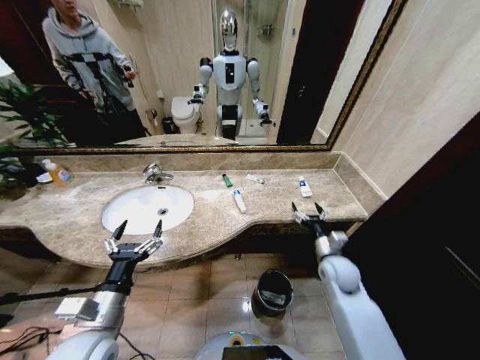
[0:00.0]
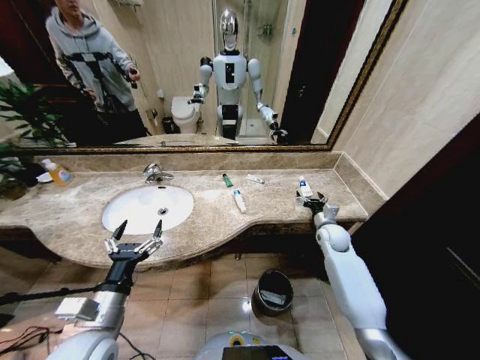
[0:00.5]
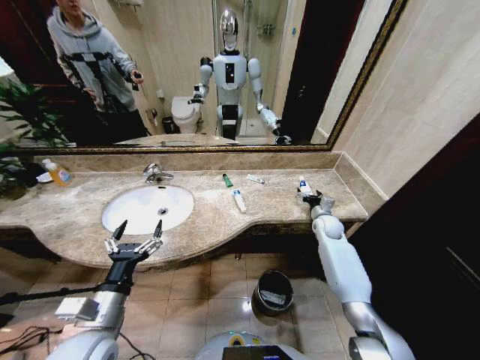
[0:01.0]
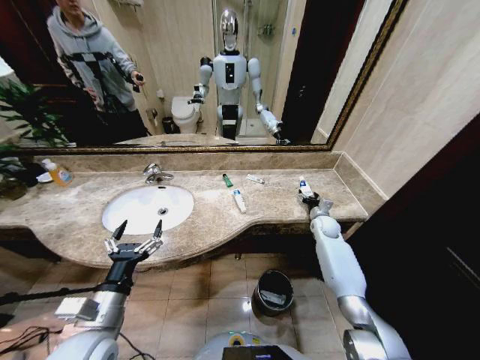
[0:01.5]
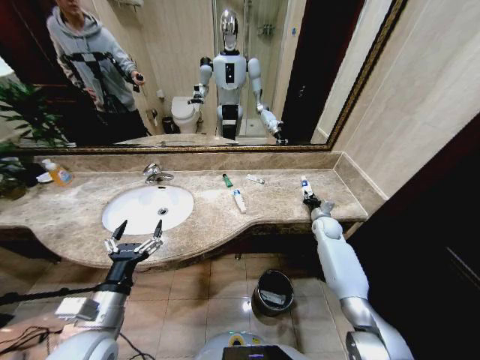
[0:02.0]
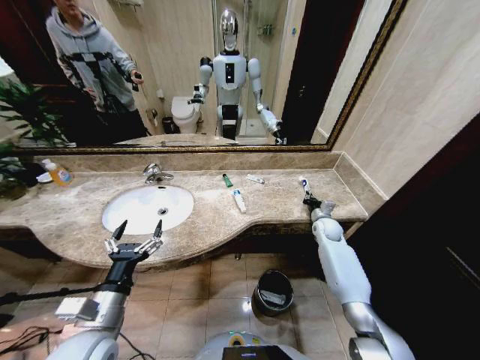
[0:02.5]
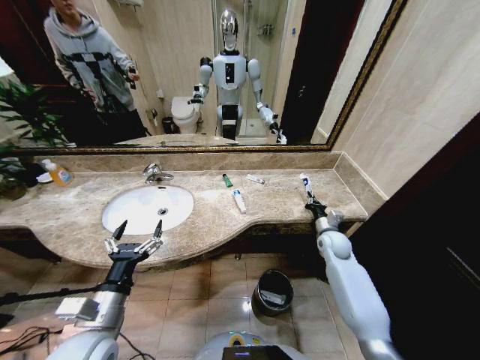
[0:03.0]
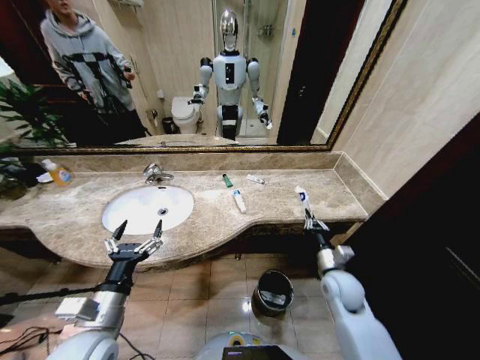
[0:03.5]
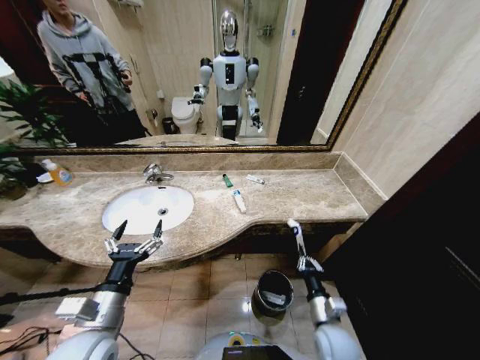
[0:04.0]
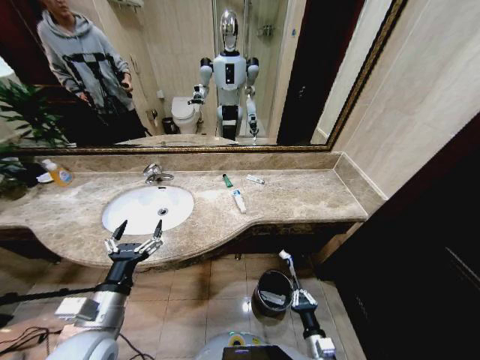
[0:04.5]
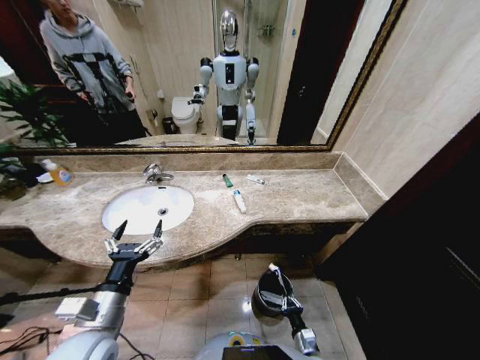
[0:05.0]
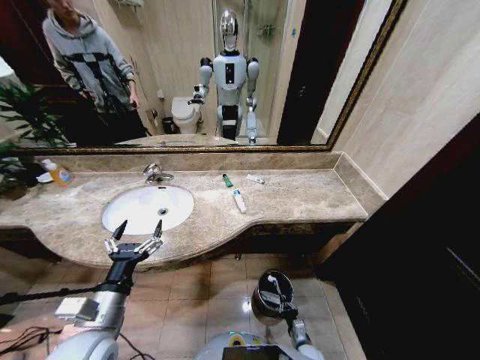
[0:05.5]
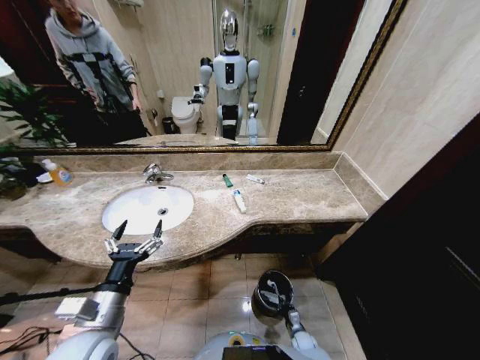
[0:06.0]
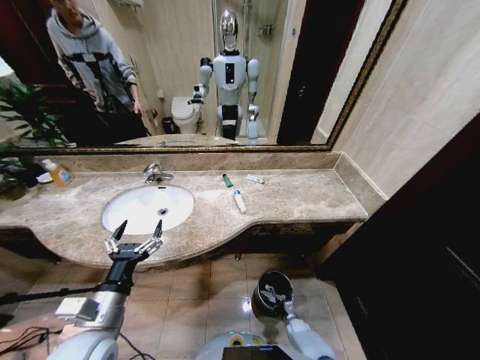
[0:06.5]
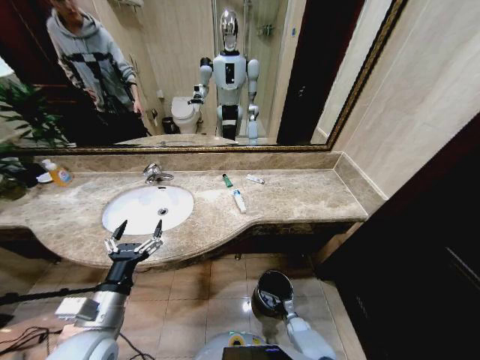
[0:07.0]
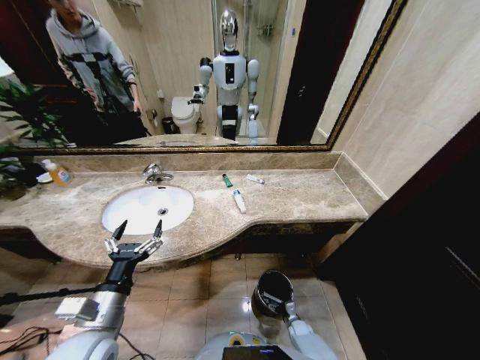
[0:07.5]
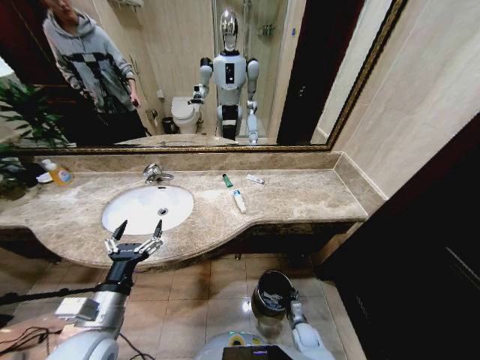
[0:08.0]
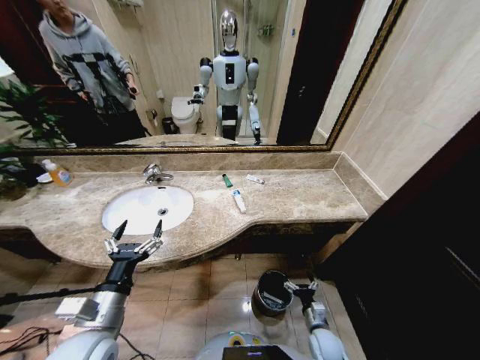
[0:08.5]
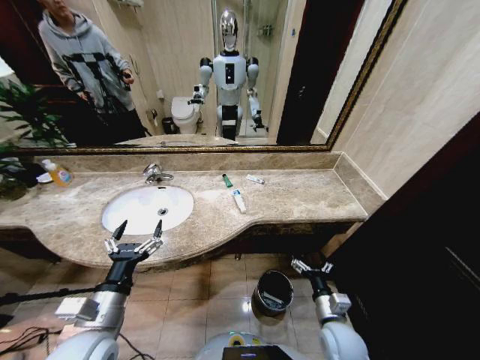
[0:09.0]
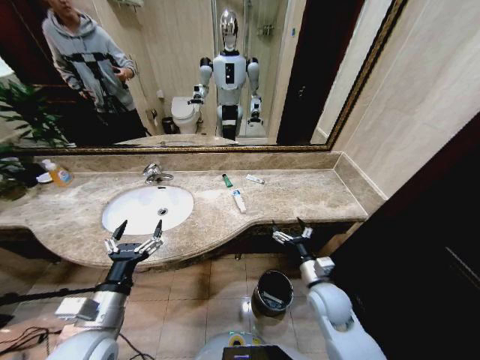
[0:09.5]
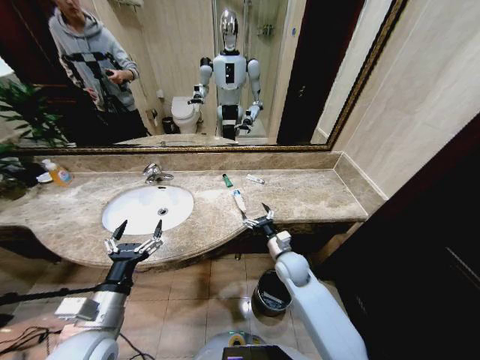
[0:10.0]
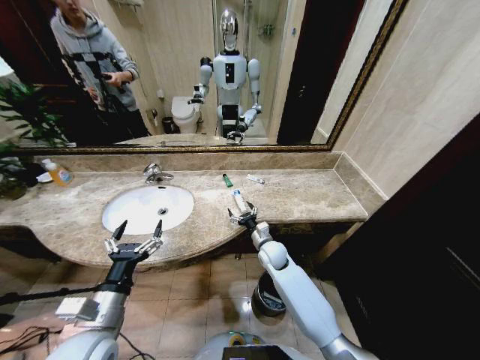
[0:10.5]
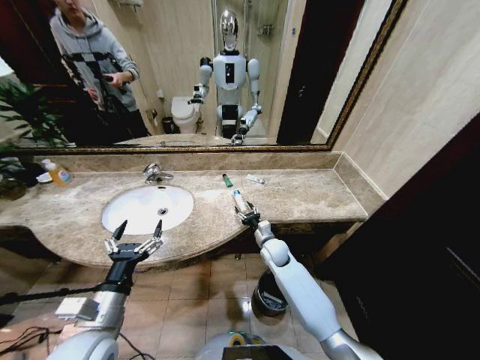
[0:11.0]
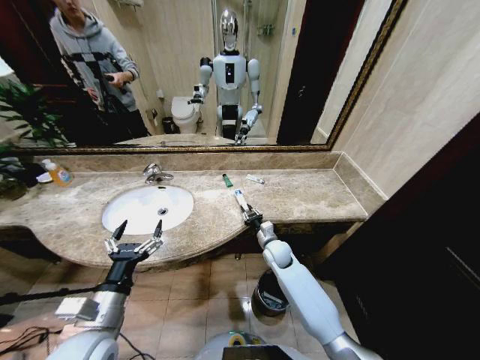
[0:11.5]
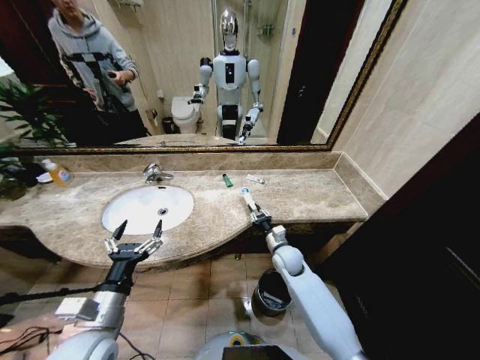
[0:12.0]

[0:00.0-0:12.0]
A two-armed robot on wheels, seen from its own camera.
Task of the whole recording: Pick up the trash from the sink and place it in the trash bin.
0:00.0 to 0:02.0: The right gripper travels forward by about 20 cm, and closes up.
0:02.0 to 0:04.0: The right gripper moves backward, some 35 cm.
0:04.0 to 0:06.0: The right gripper shifts some 30 cm downward.
0:06.0 to 0:08.0: The right gripper is displaced upward by some 5 cm, and opens up.
0:08.0 to 0:10.0: The right gripper shifts roughly 30 cm upward and forward.
0:10.0 to 0:12.0: The right gripper closes up.

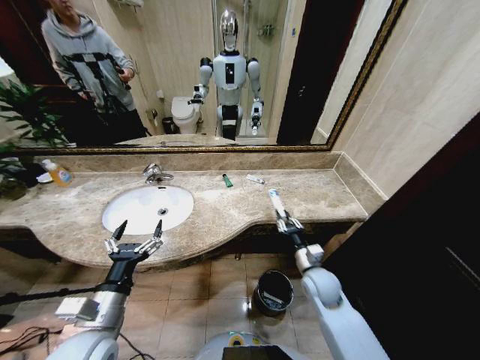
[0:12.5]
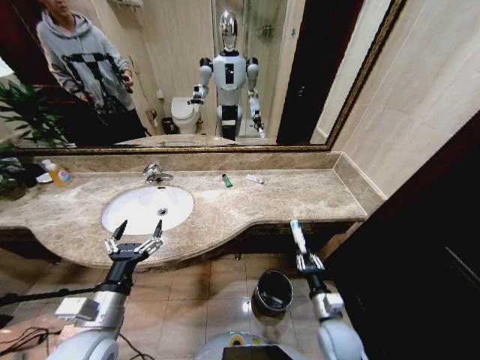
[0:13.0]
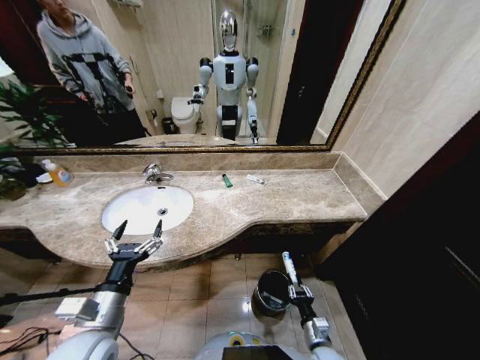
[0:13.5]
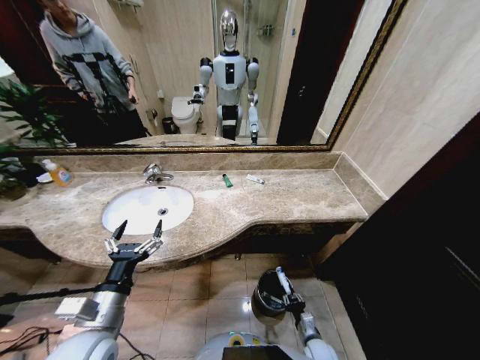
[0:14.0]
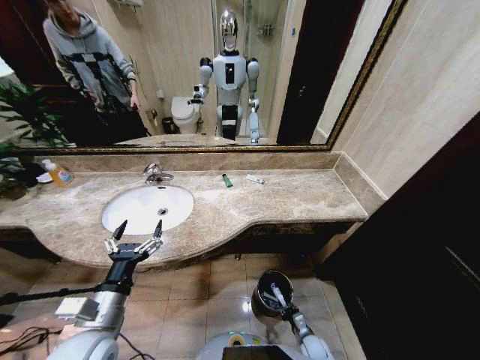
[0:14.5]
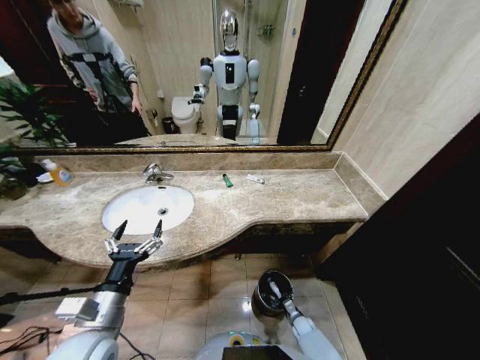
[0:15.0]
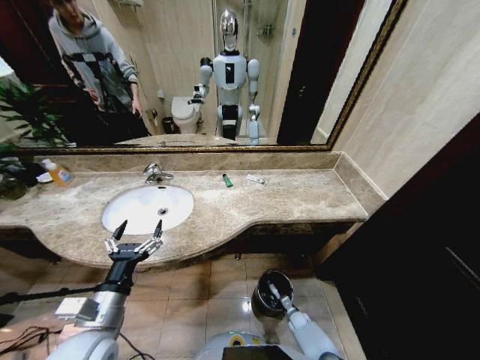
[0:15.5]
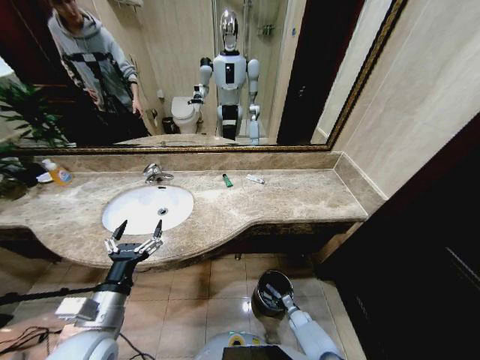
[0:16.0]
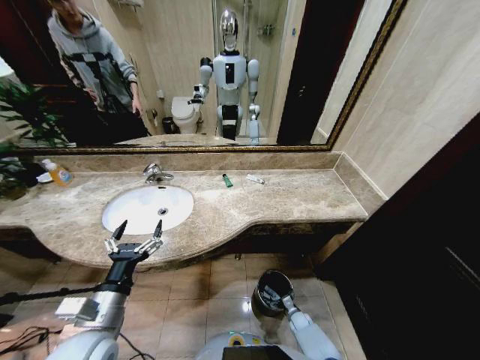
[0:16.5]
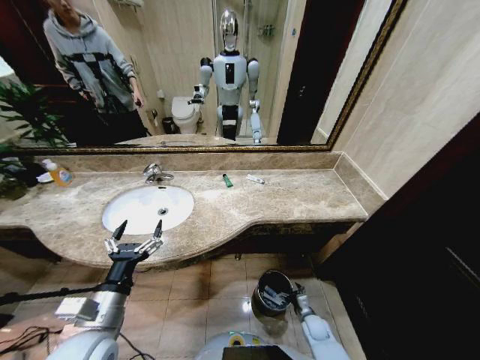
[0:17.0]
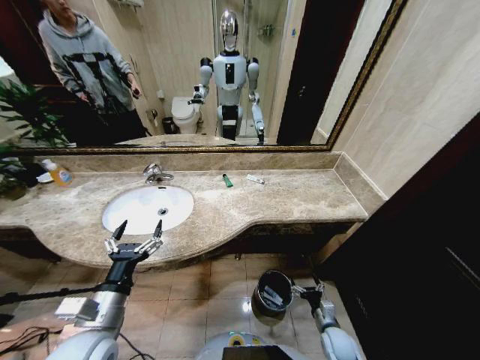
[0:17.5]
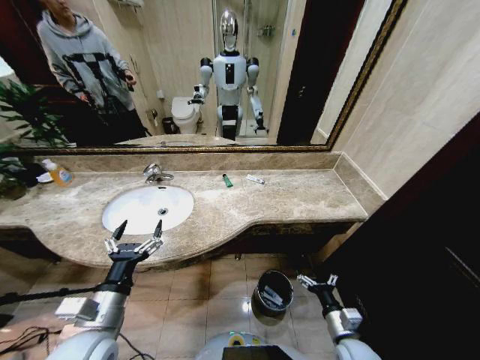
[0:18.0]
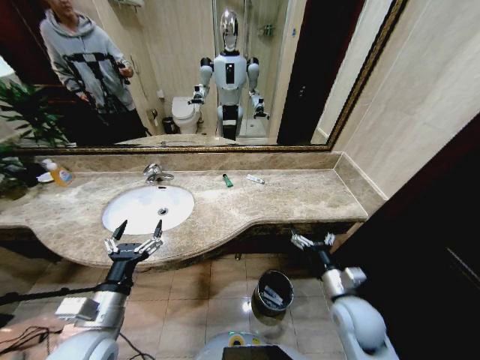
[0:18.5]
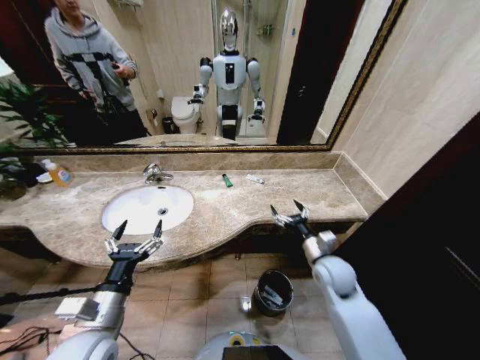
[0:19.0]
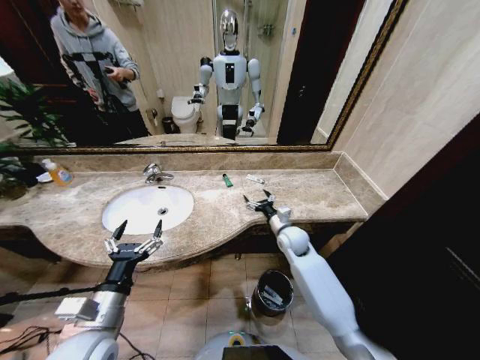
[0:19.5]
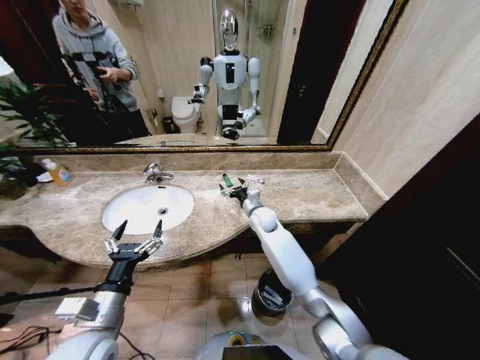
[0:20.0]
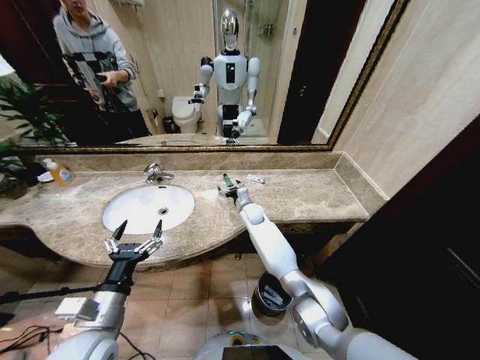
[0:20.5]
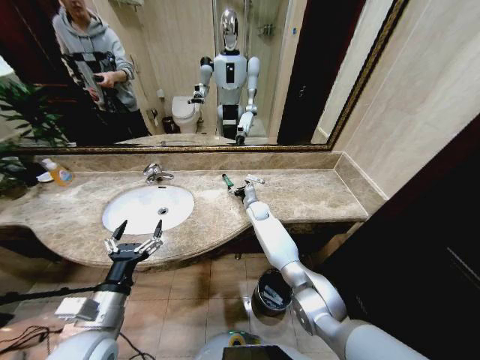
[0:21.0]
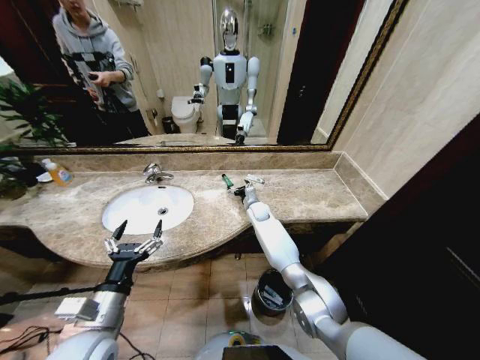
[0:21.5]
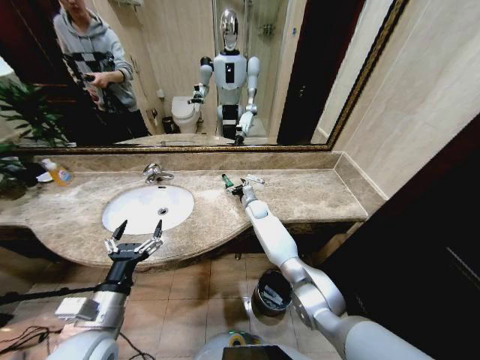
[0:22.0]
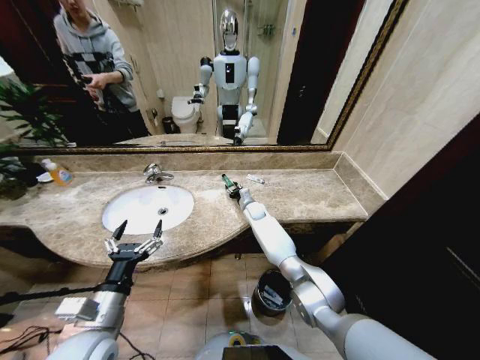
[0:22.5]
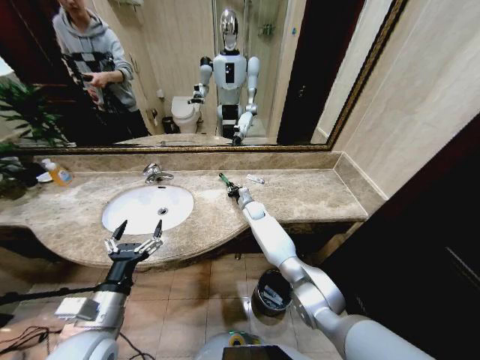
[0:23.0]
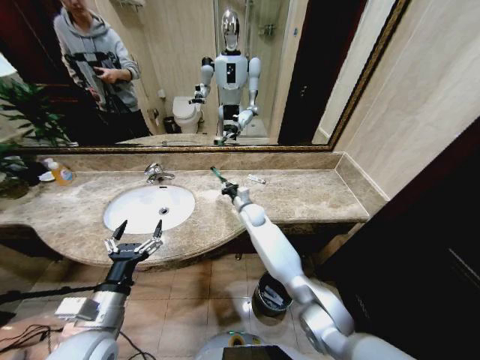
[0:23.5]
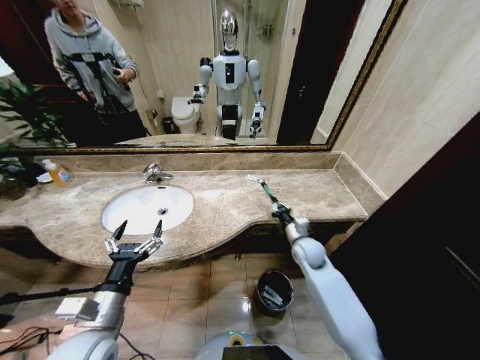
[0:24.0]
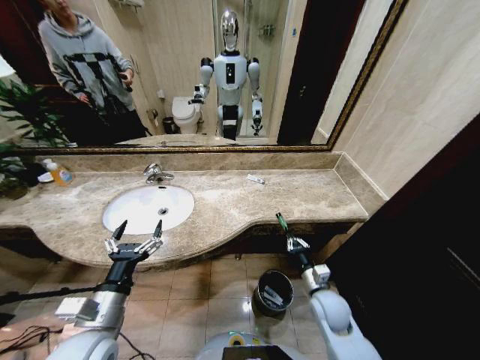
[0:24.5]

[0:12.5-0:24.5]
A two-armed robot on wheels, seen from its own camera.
Task of the whole recording: Pick up the trash from the sink and place it in the trash bin.
0:12.5 to 0:14.5: The right gripper moves downward and backward, roughly 35 cm.
0:14.5 to 0:16.5: The right gripper is displaced forward by roughly 10 cm, and opens up.
0:16.5 to 0:18.5: The right gripper heads upward, covering about 40 cm.
0:18.5 to 0:20.5: The right gripper heads forward and to the left, covering approximately 40 cm.
0:20.5 to 0:22.5: The right gripper closes up.
0:22.5 to 0:24.5: The right gripper travels backward and to the right by approximately 40 cm, and closes up.

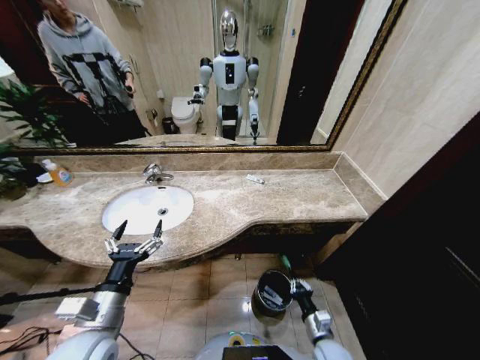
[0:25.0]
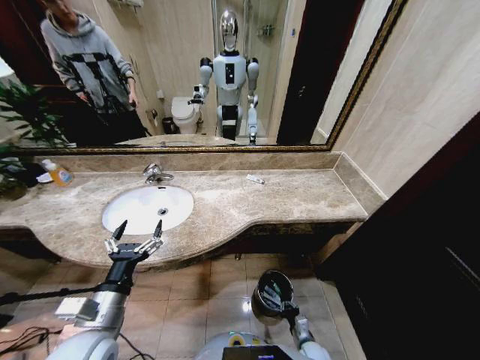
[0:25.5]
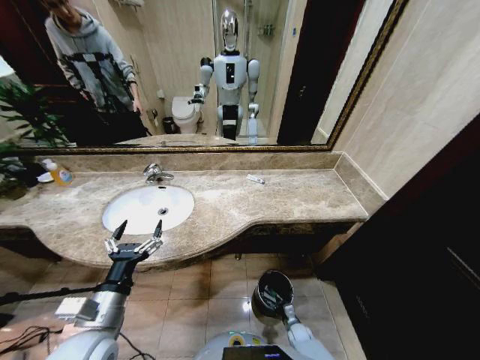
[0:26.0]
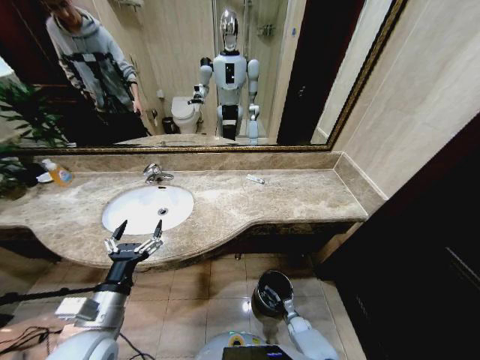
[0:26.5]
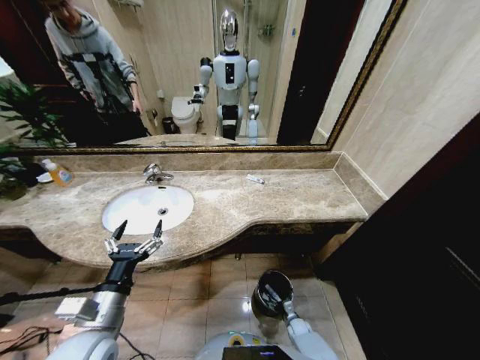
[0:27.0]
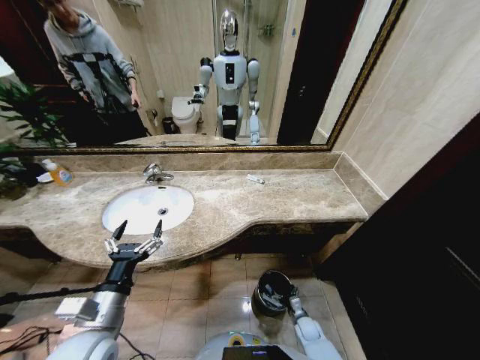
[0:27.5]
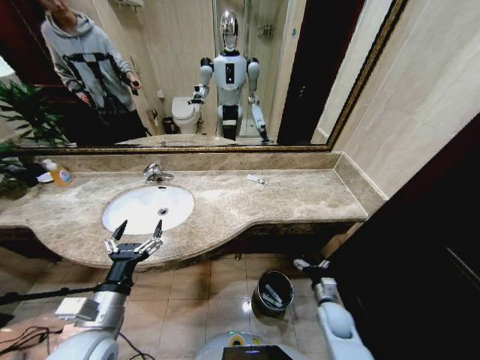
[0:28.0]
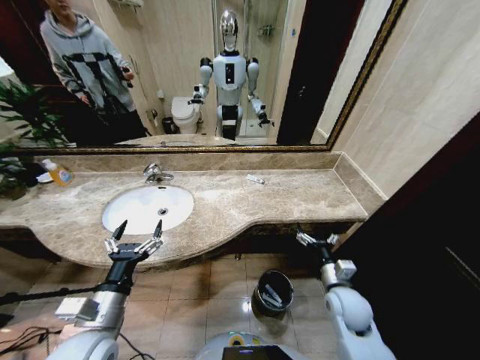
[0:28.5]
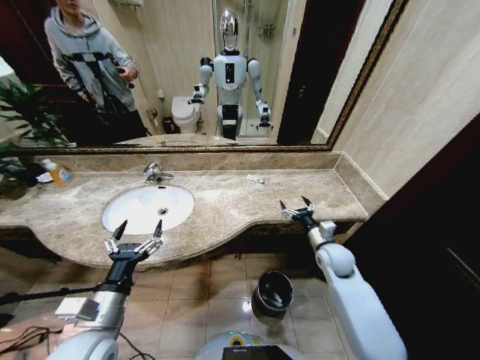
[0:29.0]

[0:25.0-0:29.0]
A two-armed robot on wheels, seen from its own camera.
Task of the whole recording: Pick up the trash from the sink and place it in the trash bin.
0:25.0 to 0:27.0: The right gripper goes some 25 cm downward, and opens its fingers.
0:27.0 to 0:29.0: The right gripper travels upward by approximately 40 cm.
